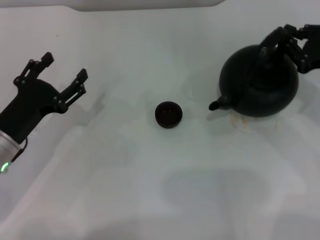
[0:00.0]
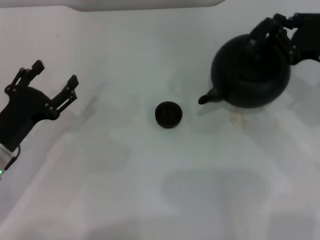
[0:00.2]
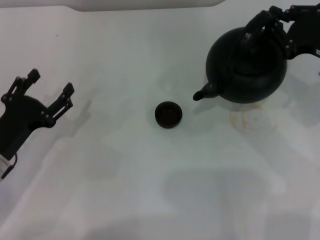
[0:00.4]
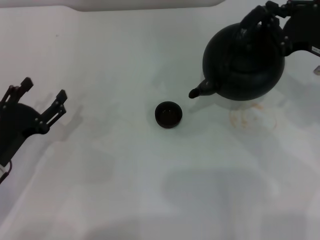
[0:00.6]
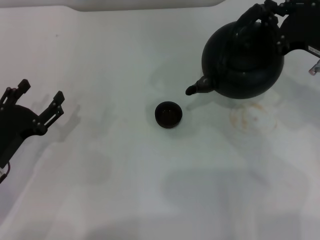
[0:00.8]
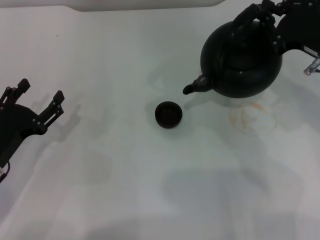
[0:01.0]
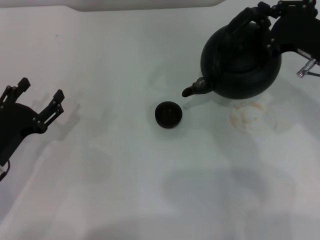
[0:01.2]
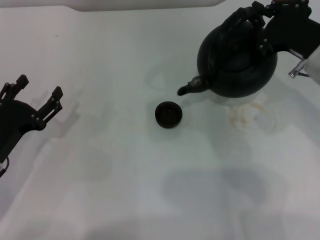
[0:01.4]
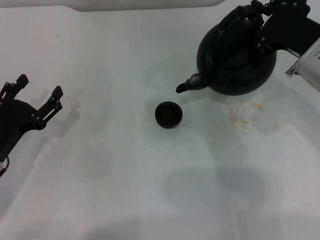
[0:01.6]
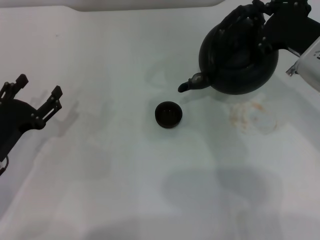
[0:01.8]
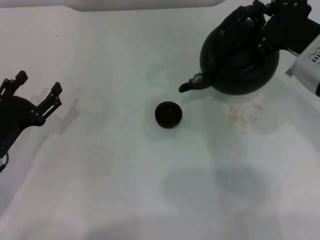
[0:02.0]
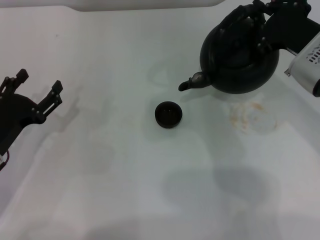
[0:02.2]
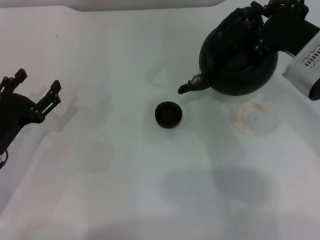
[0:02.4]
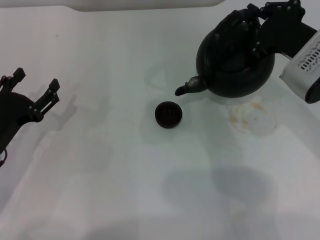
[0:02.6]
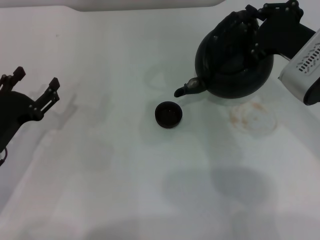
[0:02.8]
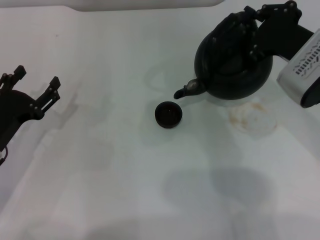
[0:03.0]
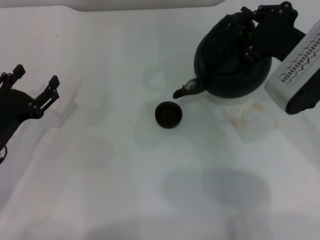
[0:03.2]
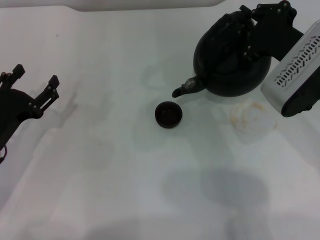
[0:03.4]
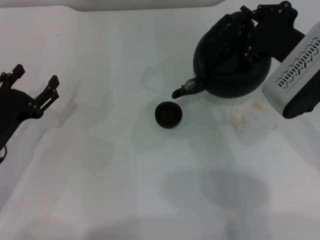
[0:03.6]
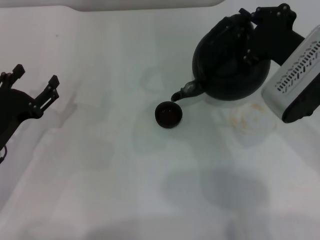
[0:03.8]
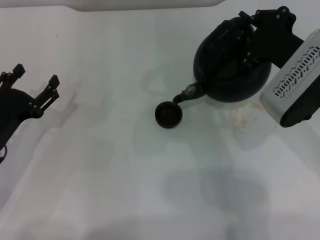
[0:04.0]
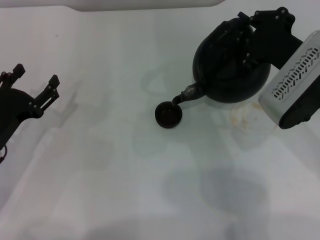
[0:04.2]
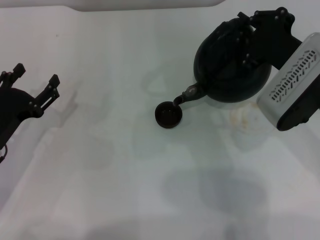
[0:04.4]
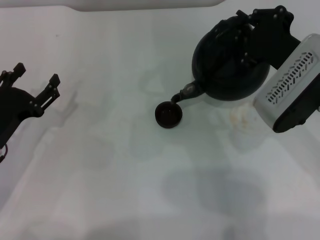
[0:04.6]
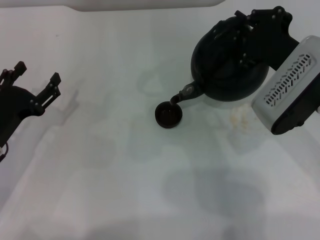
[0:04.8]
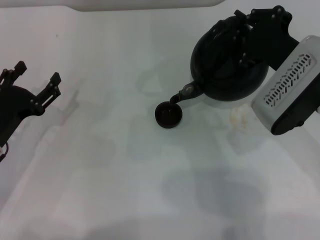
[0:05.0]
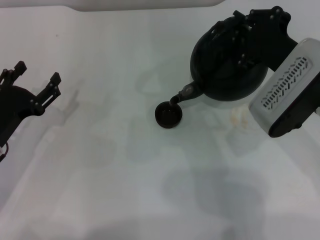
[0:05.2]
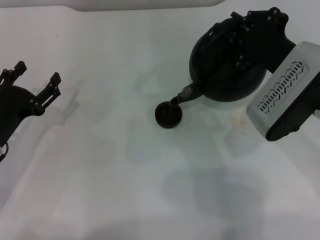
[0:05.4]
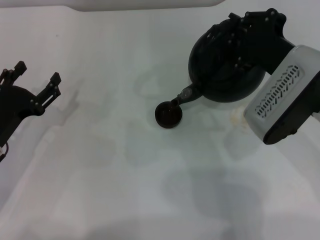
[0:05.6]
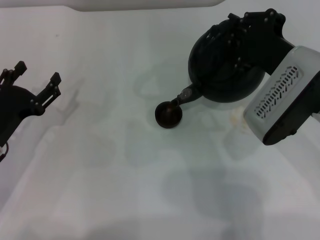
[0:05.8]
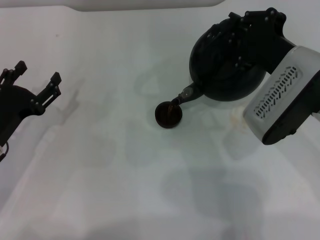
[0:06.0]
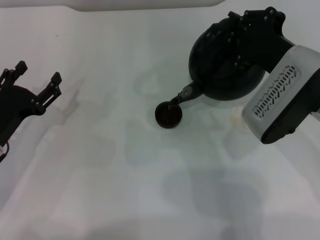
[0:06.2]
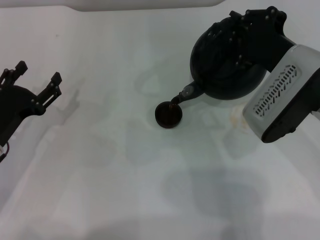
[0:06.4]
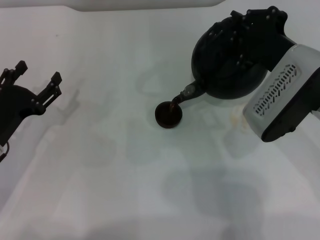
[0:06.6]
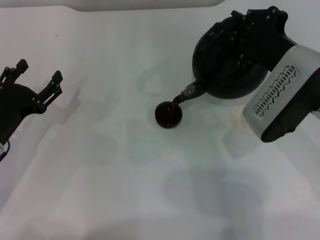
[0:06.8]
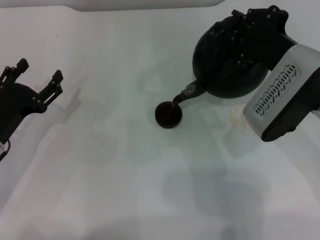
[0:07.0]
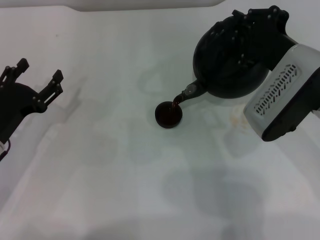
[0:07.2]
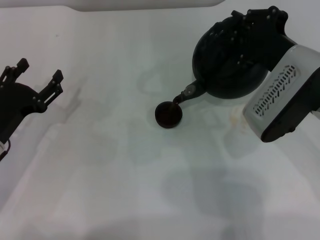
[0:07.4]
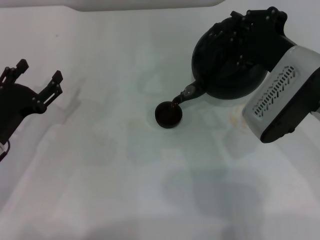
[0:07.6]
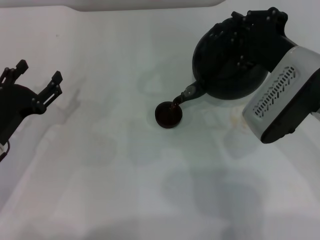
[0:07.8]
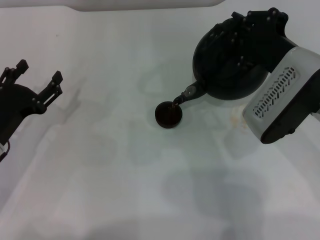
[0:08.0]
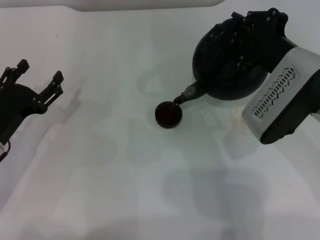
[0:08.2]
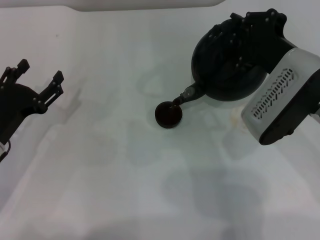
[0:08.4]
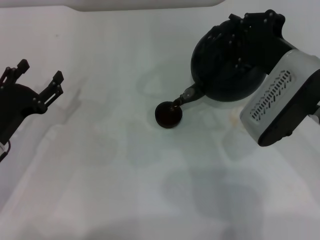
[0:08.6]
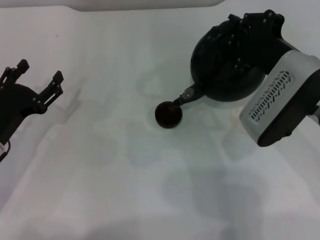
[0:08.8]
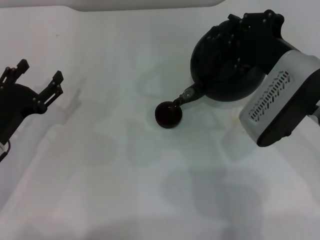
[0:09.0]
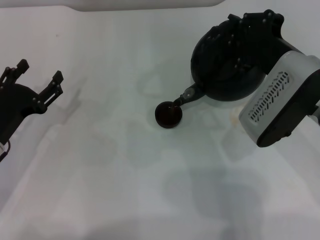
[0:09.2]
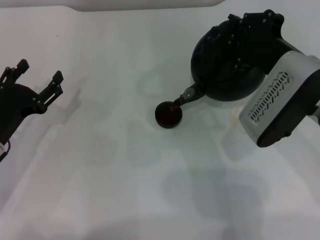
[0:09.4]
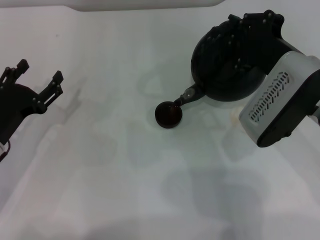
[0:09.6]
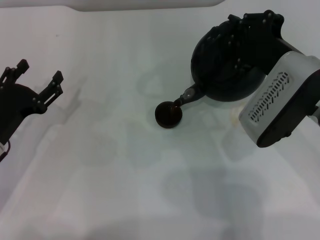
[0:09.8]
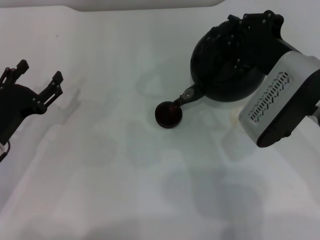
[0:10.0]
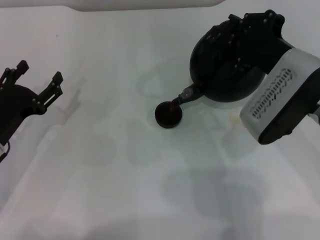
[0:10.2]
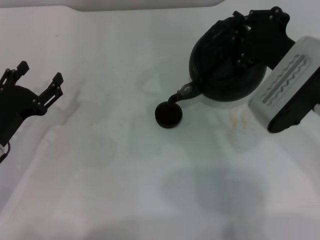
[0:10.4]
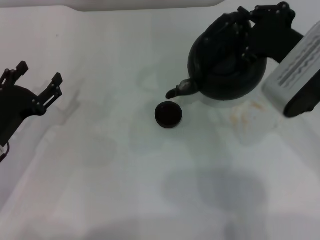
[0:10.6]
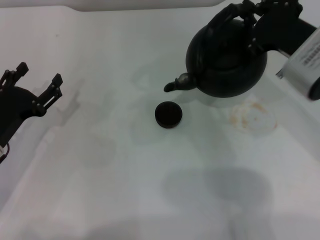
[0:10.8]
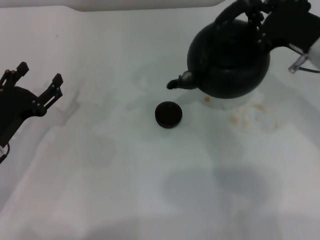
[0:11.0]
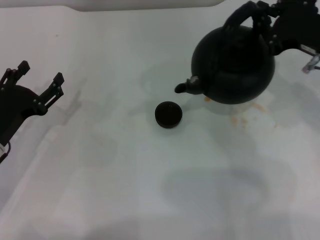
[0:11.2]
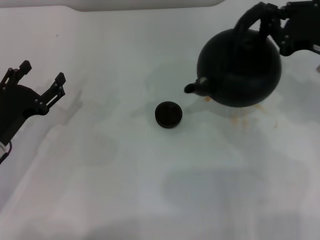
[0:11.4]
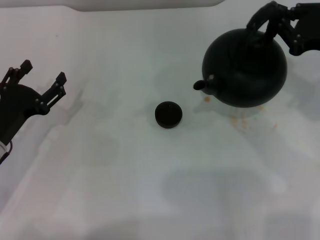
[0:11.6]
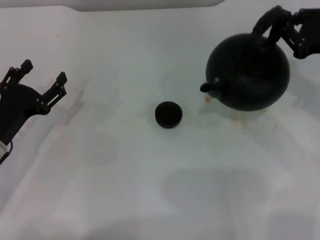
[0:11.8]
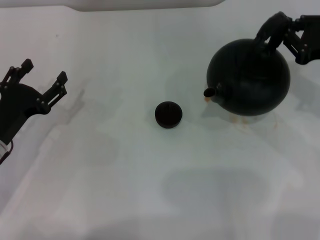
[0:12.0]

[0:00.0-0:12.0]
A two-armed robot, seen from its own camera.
Task of the whole recording: Grasp the handle of the teapot with one hand and pour tea into the teacup.
Step, 0:00.4 to 0:10.6: Pour tea into the teacup with the right gripper.
0:00.0 to 0:01.6: The right gripper is displaced to the left by roughly 10 cm.
0:01.6 to 0:06.0: The grippers make only small movements.
0:06.0 to 0:09.0: The two grippers keep their place.
0:09.0 to 0:10.4: The grippers move only a little.
0:10.4 to 0:12.0: The right gripper is displaced to the right by approximately 10 cm.

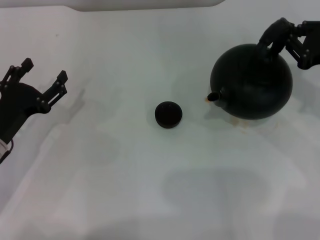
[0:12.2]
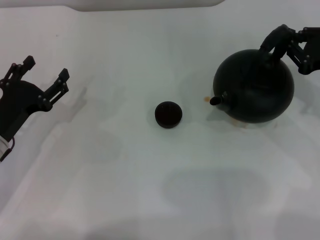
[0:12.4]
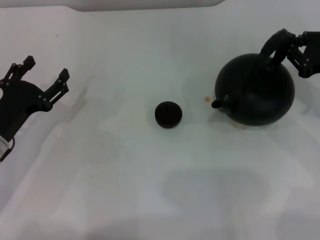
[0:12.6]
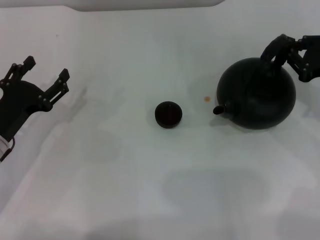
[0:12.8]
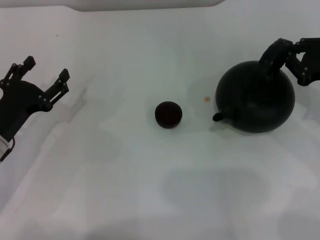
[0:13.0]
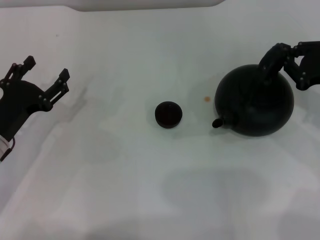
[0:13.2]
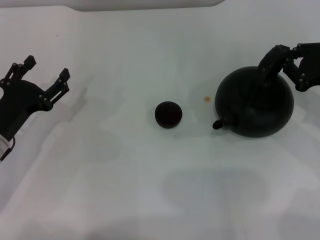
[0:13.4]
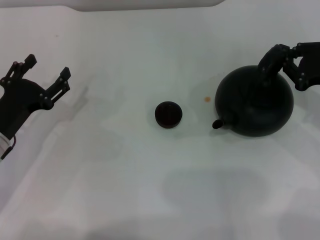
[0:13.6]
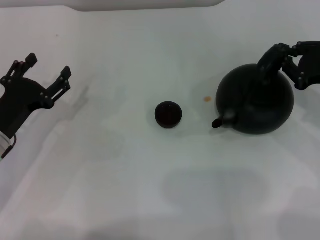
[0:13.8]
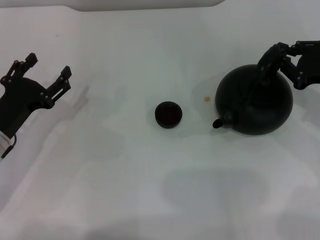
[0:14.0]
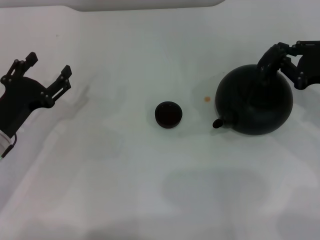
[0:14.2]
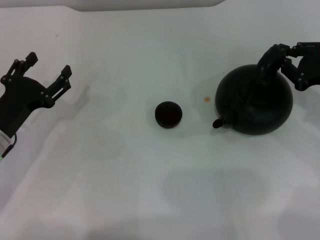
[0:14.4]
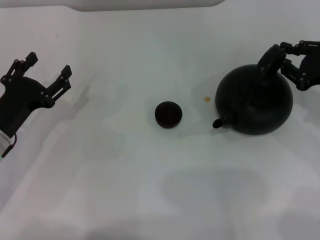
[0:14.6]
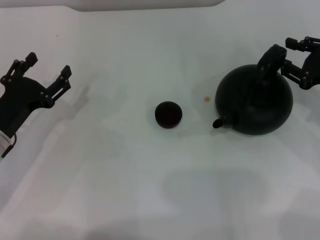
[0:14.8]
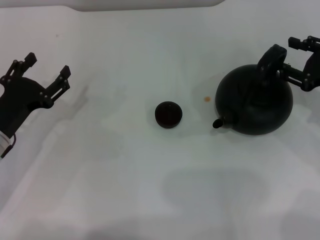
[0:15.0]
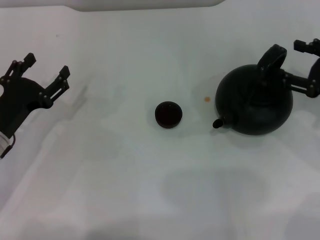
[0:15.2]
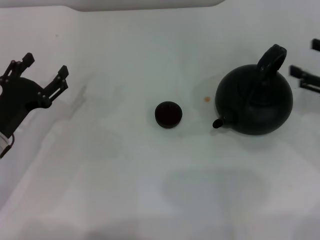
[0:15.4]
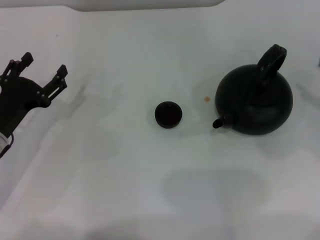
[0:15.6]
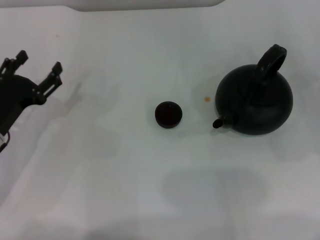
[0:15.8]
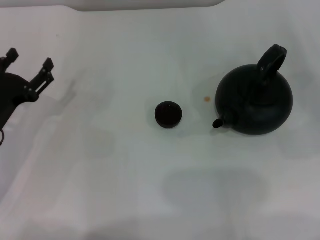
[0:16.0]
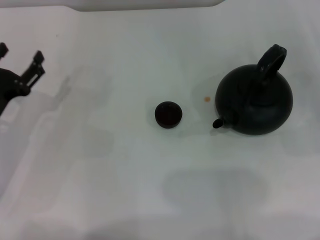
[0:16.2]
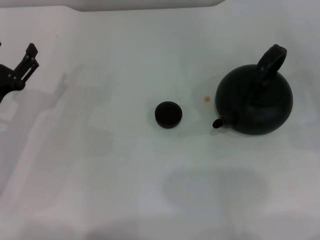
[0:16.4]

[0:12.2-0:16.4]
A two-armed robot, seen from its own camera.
Task of the whole recording: Grasp the handle of the teapot with one hand and pour tea into the teacup.
Step, 0:12.2 to 0:15.2: Put down the teapot with the right gripper.
0:12.2 to 0:13.6: The grippers stay close to where they were, moving slightly.
0:13.6 to 0:15.0: The right gripper opens up.
0:15.0 to 0:16.4: The right gripper shifts about 10 cm to the right, and opens up.

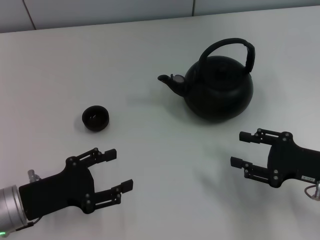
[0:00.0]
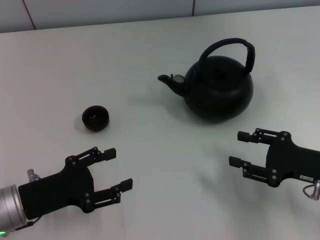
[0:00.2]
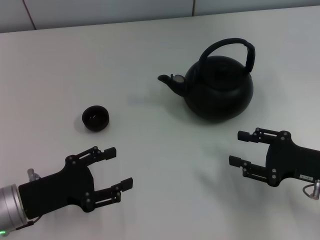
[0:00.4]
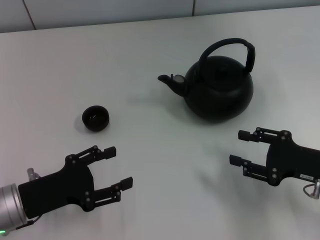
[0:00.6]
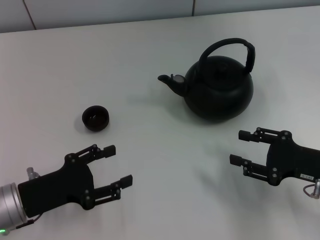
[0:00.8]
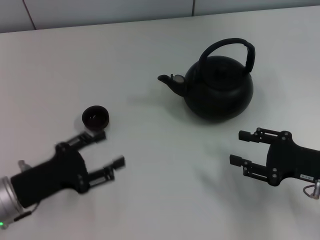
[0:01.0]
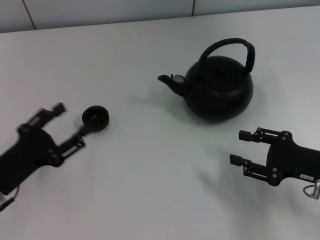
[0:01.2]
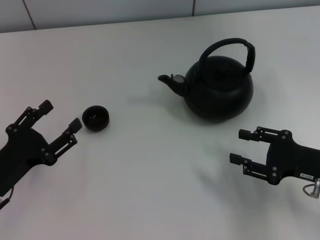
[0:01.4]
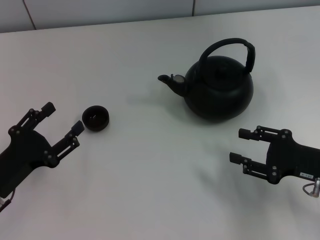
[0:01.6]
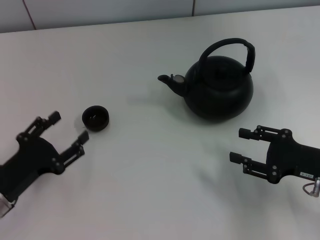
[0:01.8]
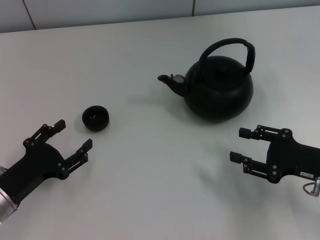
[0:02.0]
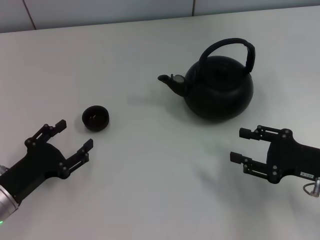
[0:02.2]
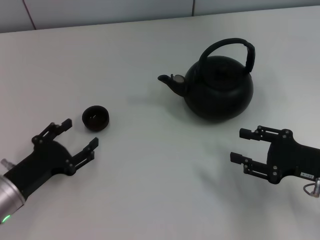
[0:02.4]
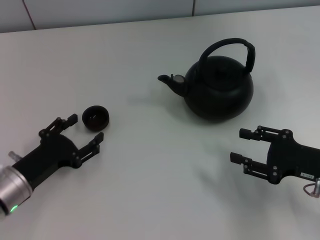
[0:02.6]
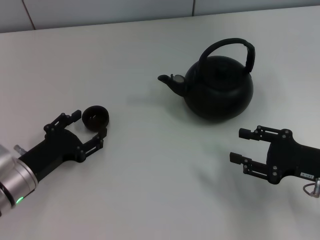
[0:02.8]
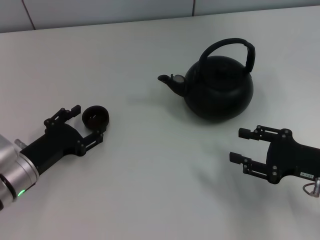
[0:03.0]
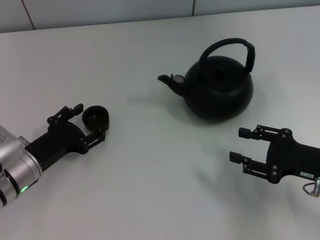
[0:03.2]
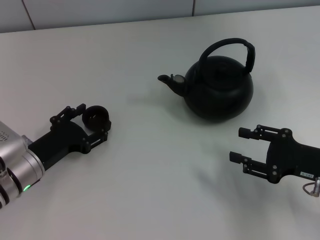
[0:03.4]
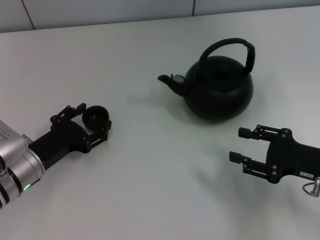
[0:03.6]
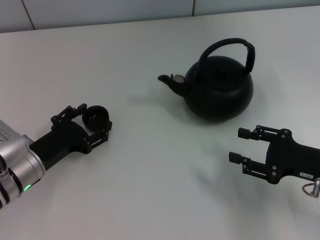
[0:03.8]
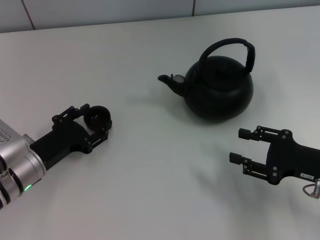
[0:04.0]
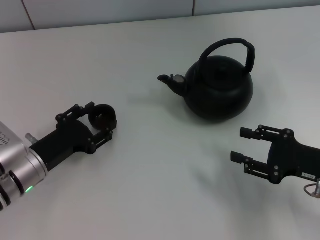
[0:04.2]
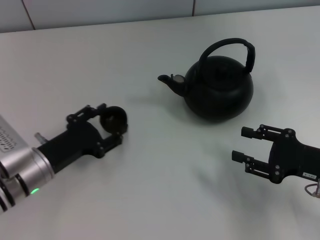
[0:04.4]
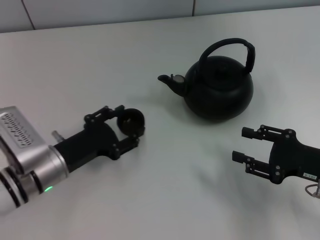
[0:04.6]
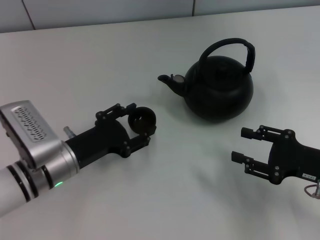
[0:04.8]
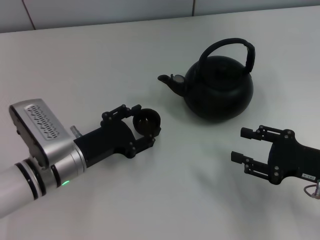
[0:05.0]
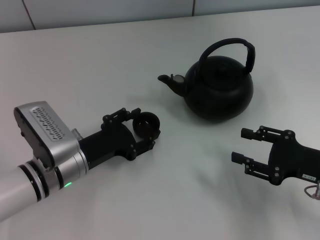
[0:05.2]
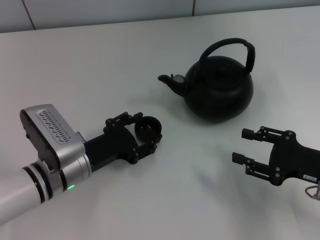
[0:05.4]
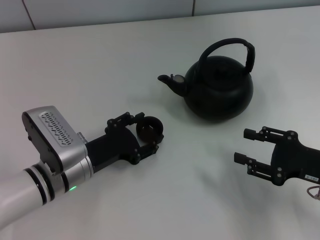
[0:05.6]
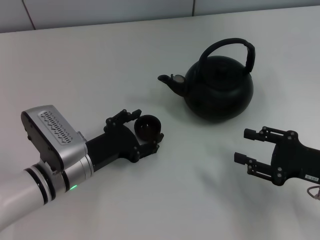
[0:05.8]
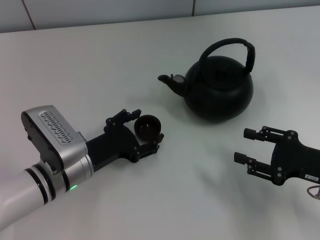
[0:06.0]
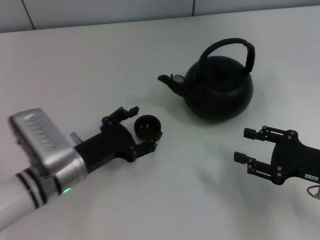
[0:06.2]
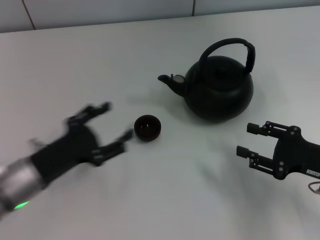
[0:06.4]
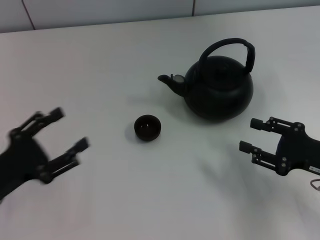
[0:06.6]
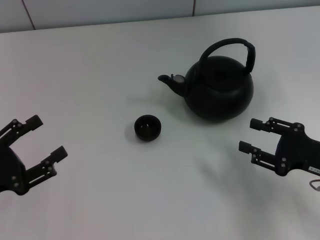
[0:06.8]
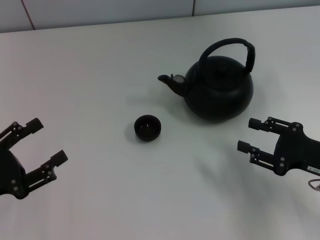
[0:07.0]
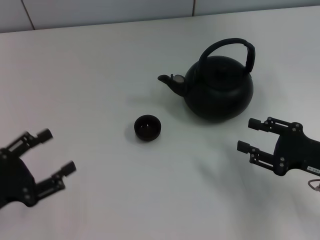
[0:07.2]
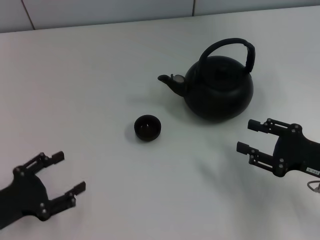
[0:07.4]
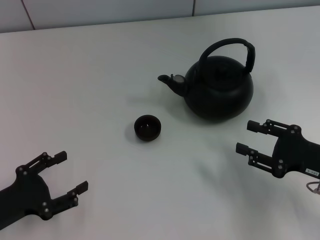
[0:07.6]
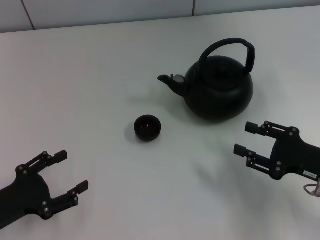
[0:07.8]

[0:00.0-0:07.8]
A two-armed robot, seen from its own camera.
Task of the whole recording: Grasp the handle of the teapot with one hand and pour tea into the teacup.
Step, 0:00.0 to 0:04.0: Pick up the teacup with the left gripper.
Step, 0:04.4 to 0:06.6: Place the teacup in the center of view with the left gripper.
0:01.6 to 0:03.2: The left gripper moves forward, some 5 cm.
0:03.2 to 0:04.6: The left gripper closes.
0:04.6 to 0:06.2: The left gripper opens up.
0:06.2 to 0:07.8: The left gripper travels to the left and backward by roughly 15 cm.
